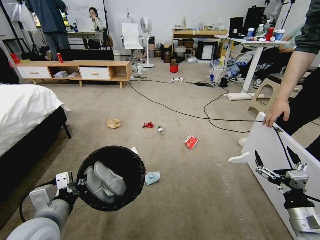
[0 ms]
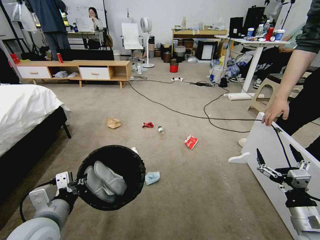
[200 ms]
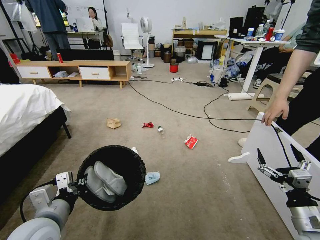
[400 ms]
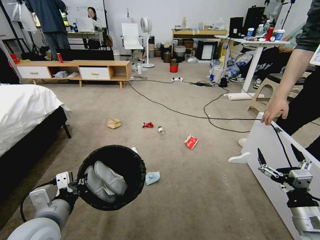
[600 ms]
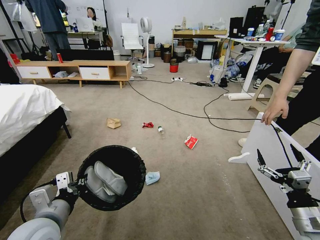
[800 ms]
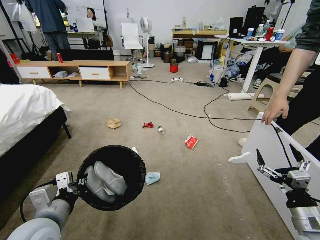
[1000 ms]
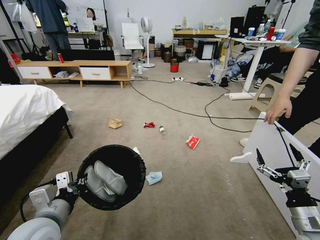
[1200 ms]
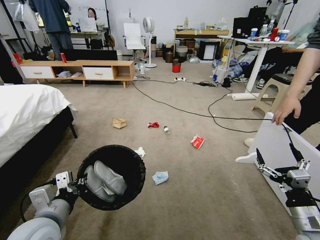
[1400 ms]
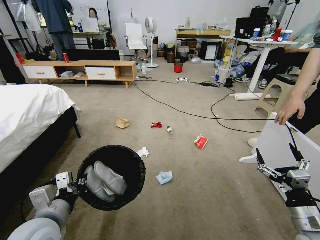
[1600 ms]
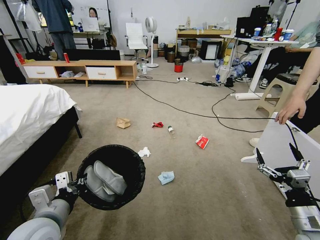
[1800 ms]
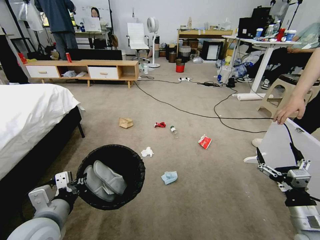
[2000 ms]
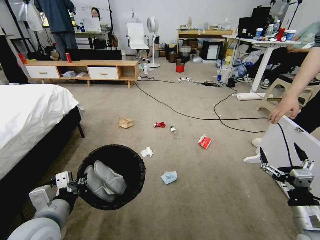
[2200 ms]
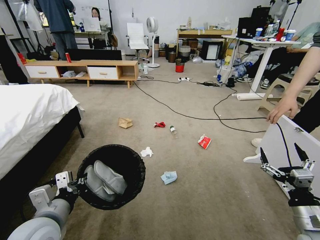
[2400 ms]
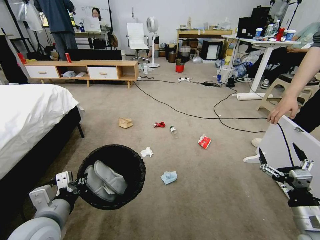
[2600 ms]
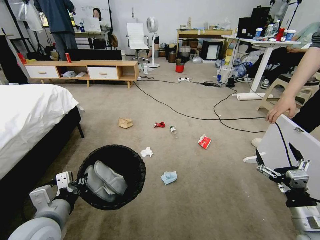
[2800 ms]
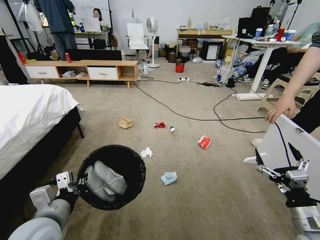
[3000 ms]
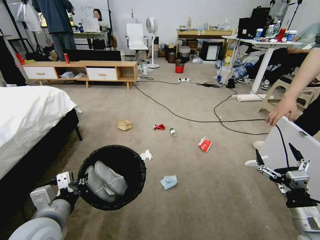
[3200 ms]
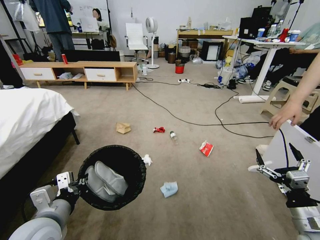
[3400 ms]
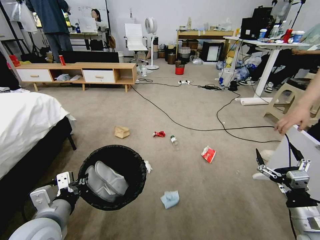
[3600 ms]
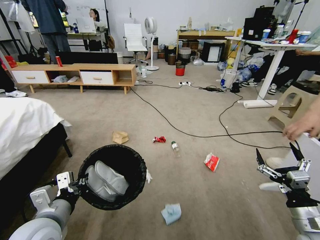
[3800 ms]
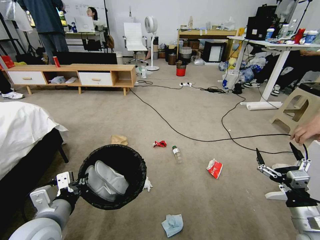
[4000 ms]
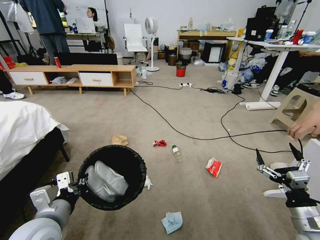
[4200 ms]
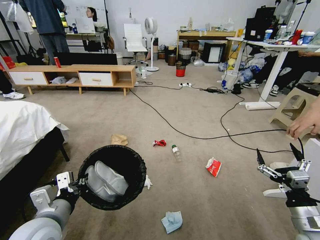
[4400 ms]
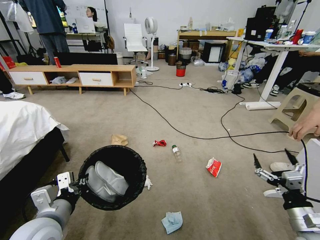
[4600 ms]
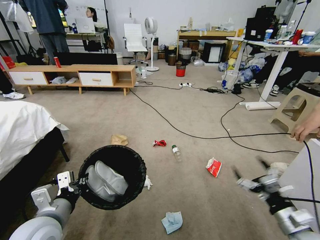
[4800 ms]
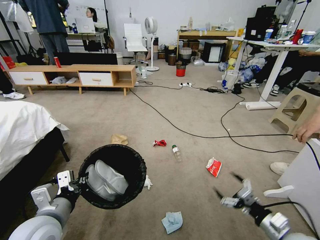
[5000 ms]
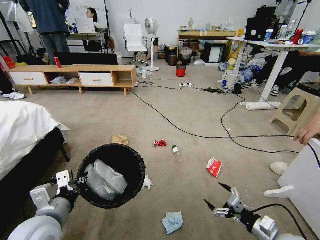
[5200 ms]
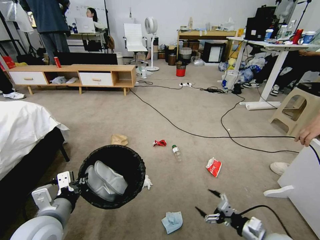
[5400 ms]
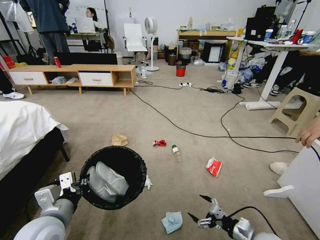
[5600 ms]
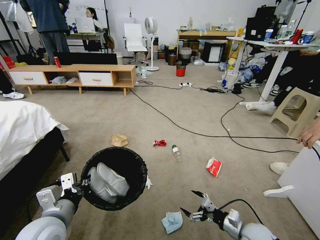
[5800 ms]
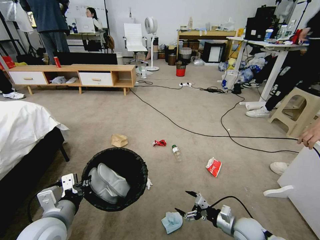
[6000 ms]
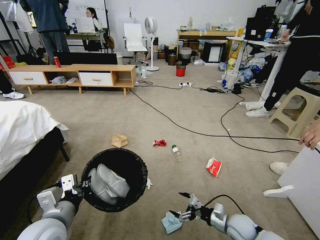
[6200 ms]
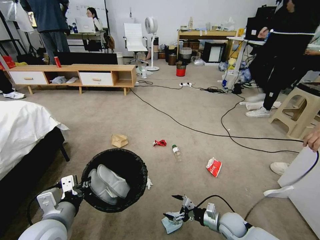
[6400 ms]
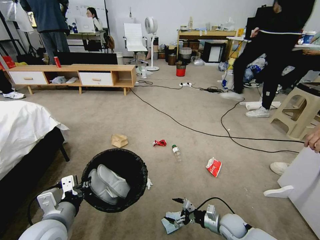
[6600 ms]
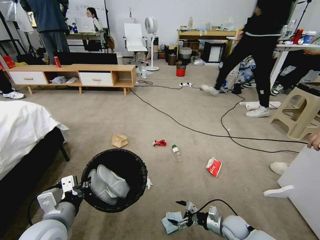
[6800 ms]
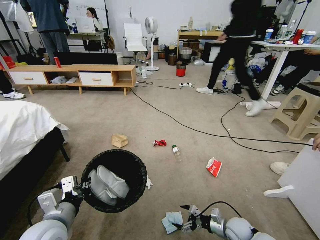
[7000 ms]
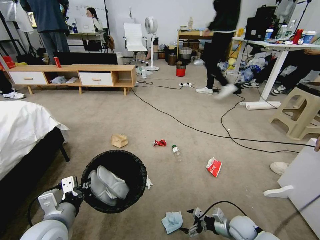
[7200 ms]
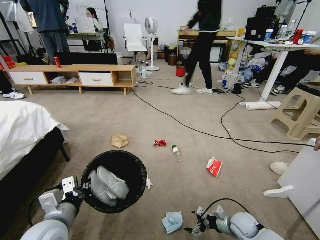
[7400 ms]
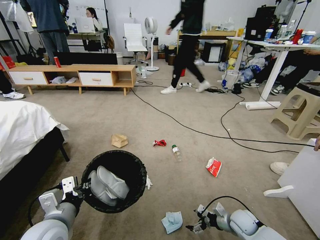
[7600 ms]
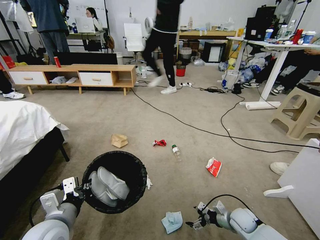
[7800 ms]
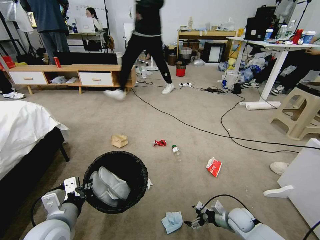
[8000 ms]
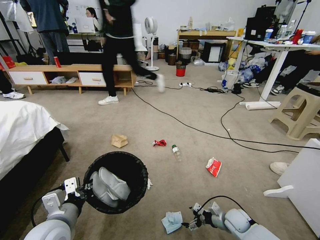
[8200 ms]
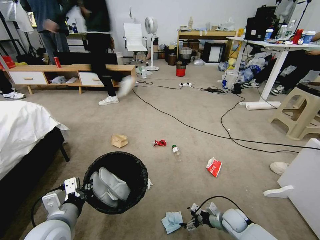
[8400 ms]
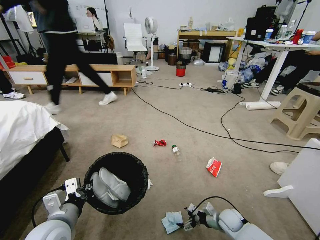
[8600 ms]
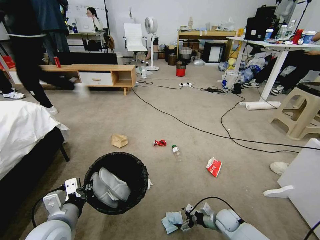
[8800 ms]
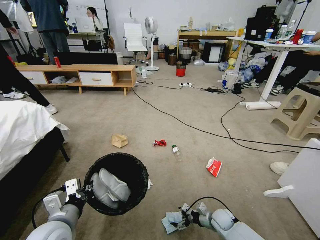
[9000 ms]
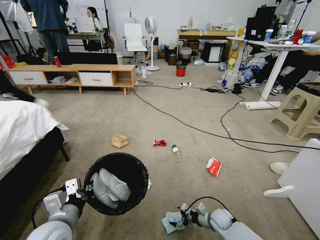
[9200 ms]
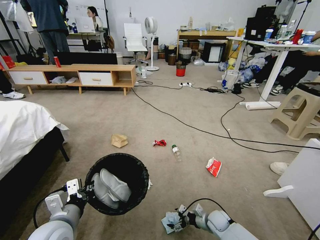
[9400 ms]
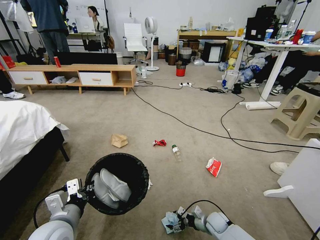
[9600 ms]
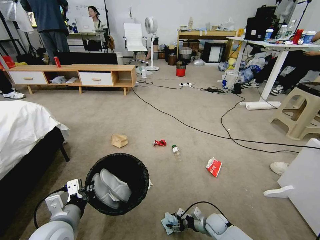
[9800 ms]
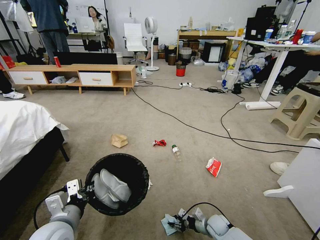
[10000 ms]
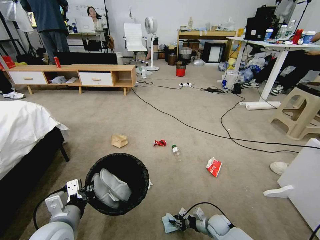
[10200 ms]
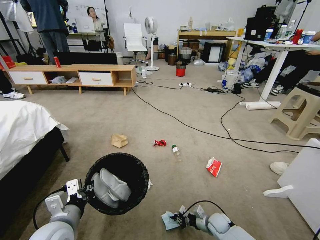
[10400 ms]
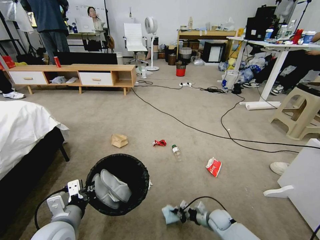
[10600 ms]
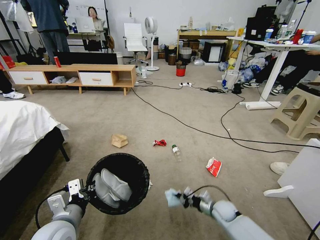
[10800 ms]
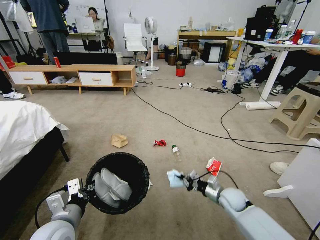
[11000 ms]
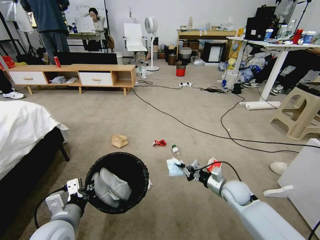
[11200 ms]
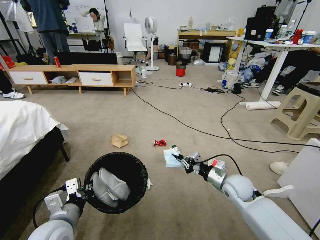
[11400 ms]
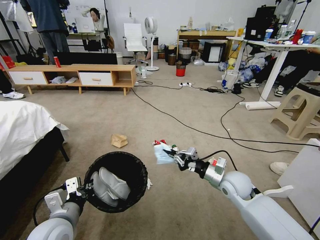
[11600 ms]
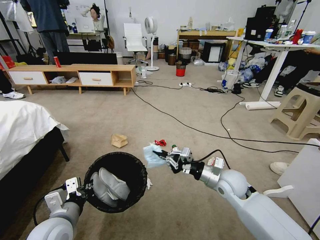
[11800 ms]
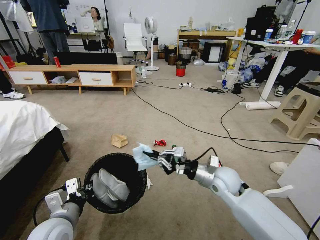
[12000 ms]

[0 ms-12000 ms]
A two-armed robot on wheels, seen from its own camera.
Task of the whole recording: Pick up the trash bin and place the garbage on the floor into it.
1600 ms to 3000 ms: The two grippers keep their place.
4400 ms to 6000 ms: The right gripper heads downward, to the left and forward, covering some 20 cm.
6000 ms to 7600 ms: The right gripper shifts by roughly 5 cm.
7600 ms to 9000 ms: The right gripper moves downward and to the left, approximately 10 cm.
9000 ms to 10400 ms: The right gripper closes its fingers.
10400 ms to 12000 ms: The right gripper goes some 30 cm upward.

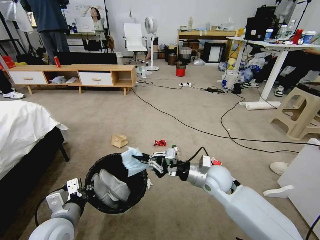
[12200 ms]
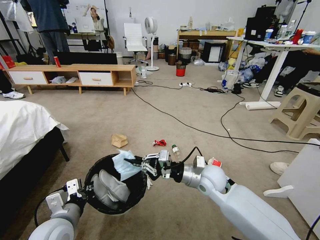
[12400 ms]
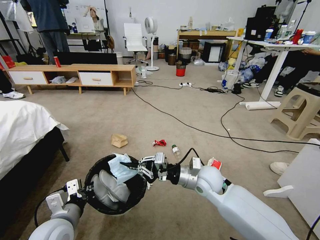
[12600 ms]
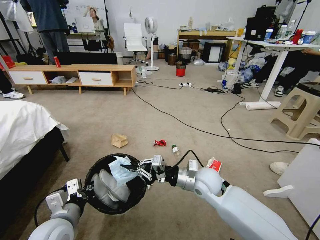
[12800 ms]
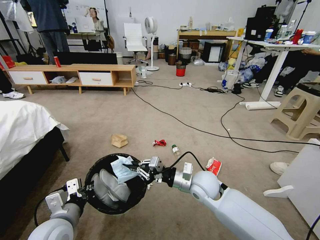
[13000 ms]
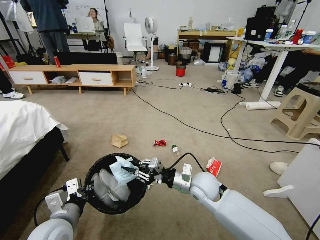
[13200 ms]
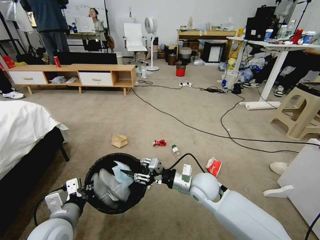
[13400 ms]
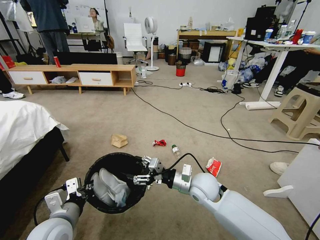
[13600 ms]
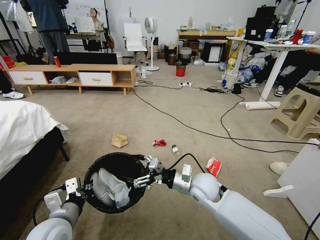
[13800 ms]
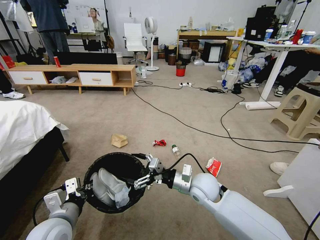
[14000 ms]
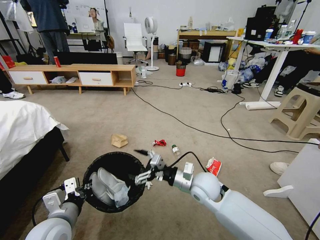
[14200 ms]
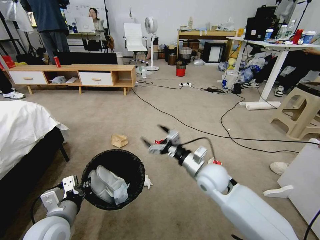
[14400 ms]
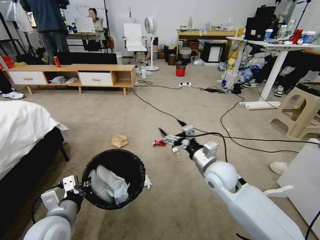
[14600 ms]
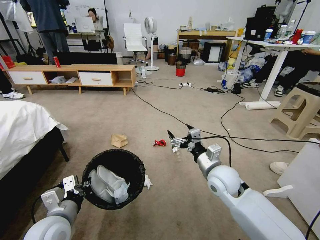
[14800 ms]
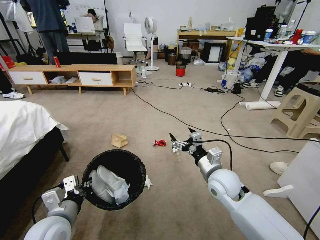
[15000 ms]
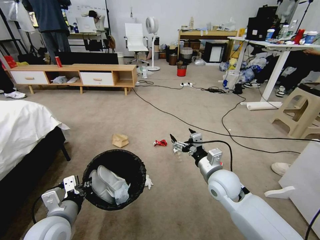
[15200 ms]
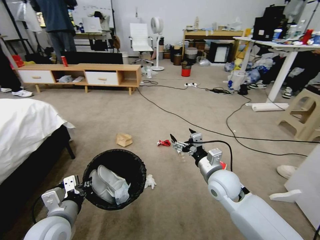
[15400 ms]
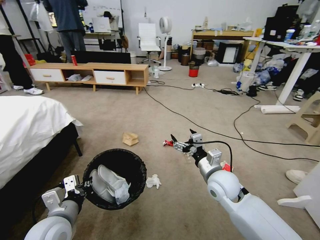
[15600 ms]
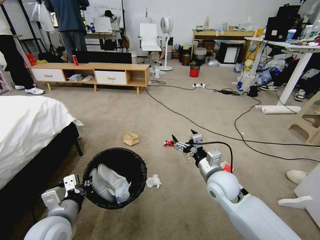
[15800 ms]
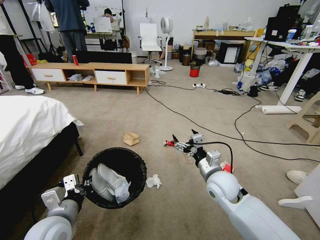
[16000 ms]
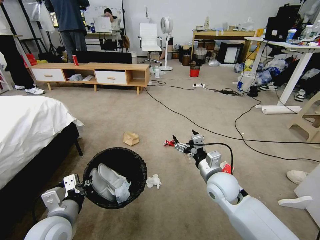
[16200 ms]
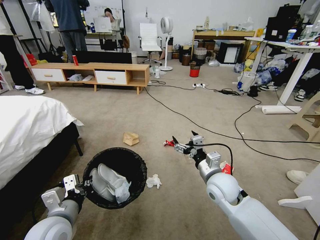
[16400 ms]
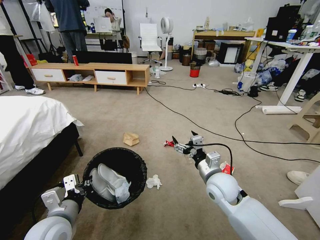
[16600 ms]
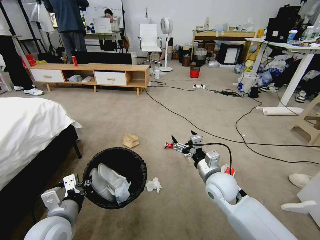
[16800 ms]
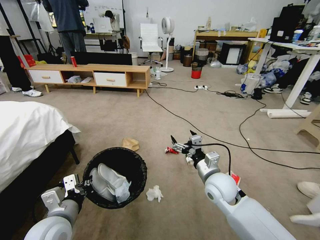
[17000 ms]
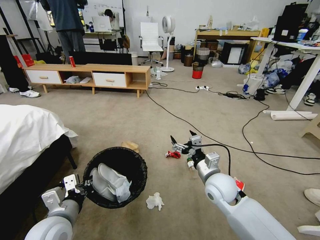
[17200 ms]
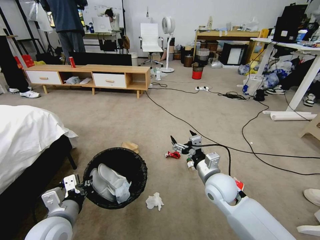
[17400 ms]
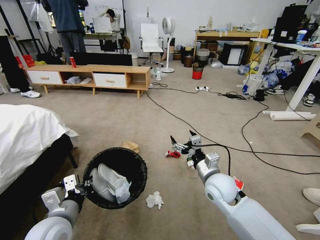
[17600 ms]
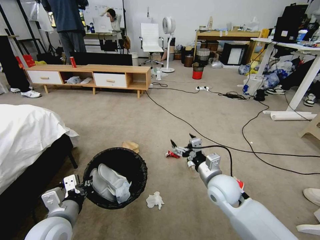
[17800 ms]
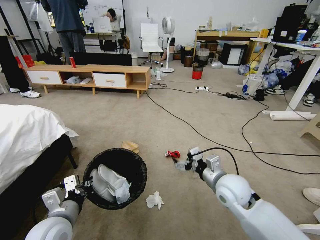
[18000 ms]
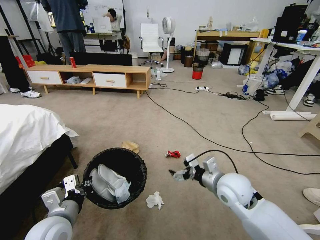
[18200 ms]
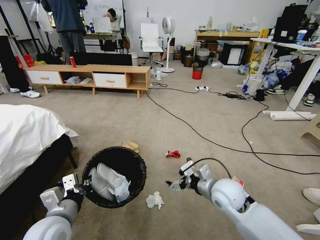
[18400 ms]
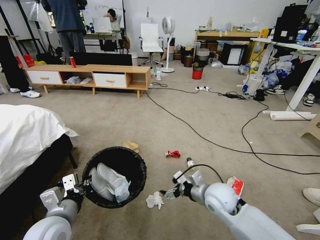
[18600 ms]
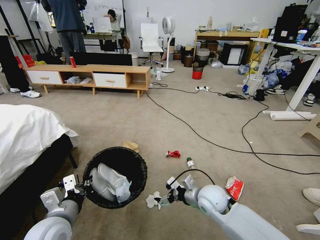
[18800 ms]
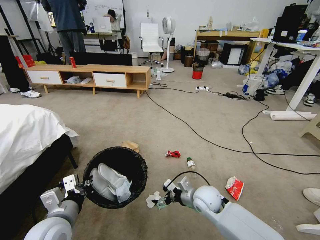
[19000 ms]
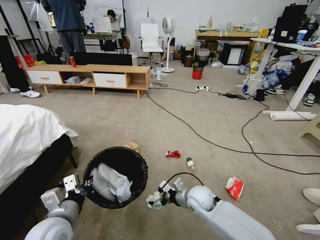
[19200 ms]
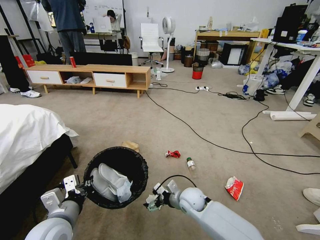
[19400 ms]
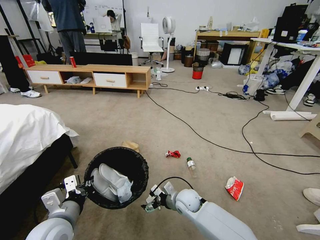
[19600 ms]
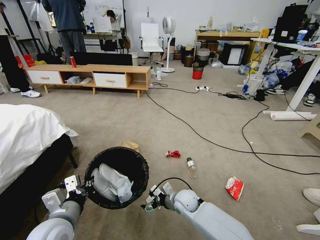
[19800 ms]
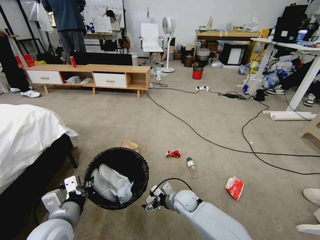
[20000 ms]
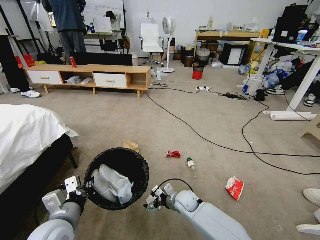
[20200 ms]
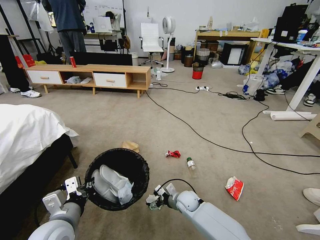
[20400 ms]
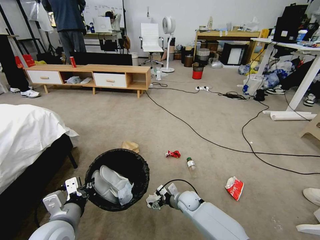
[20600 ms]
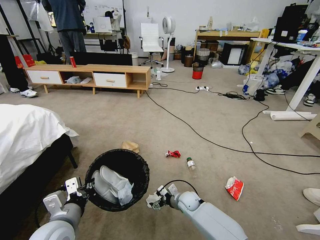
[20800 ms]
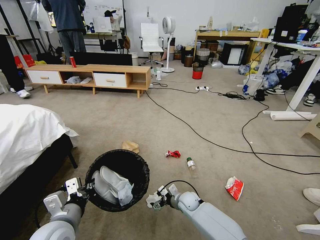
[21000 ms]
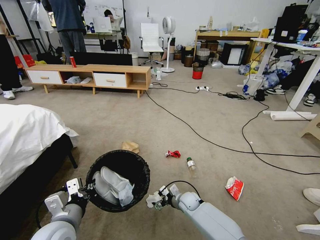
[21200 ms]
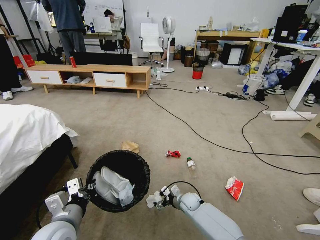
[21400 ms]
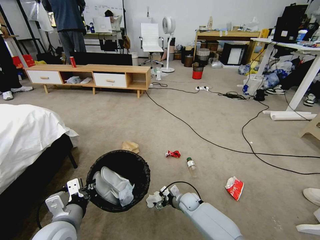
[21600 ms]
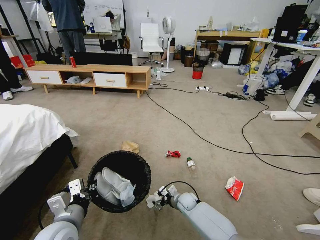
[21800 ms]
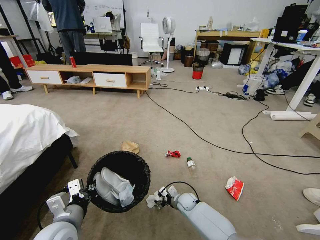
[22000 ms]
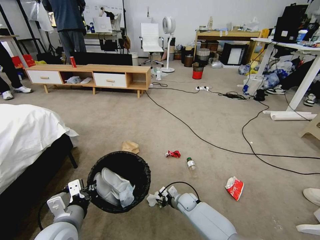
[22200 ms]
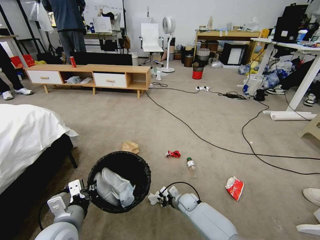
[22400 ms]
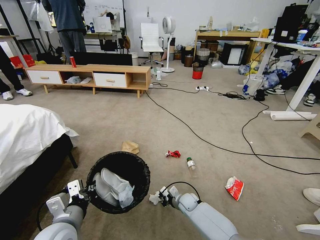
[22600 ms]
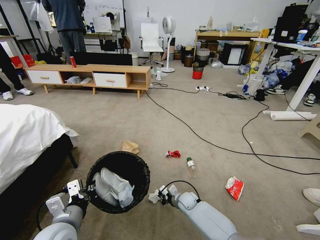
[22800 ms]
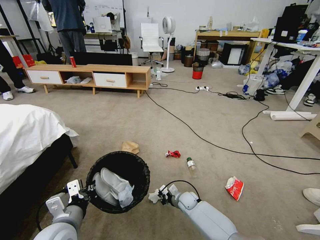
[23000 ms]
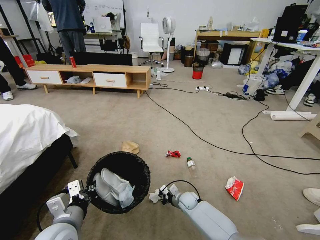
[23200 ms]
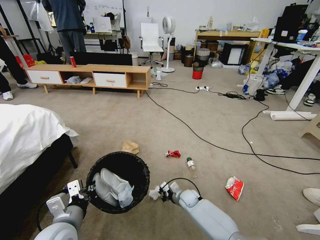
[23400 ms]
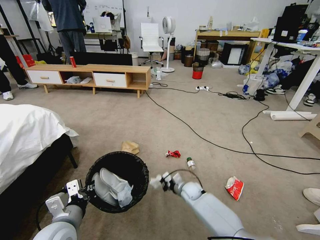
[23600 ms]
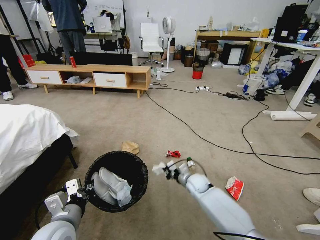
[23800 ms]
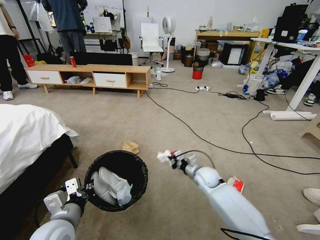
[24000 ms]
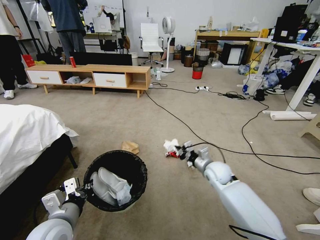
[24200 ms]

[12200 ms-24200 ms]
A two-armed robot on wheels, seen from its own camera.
Task of the whole recording: Pick up the trash bin and place the garbage on the floor into it.
12200 ms to 13800 ms: The right gripper shifts roughly 5 cm to the left, and opens.
13800 ms to 15200 ms: The right gripper shifts approximately 5 cm to the right.
18200 ms to 19800 ms: The right gripper travels downward and to the left by approximately 20 cm.
19800 ms to 21200 ms: The right gripper moves downward, approximately 10 cm.
21200 ms to 22600 ms: The right gripper closes its fingers.
22600 ms to 24200 ms: The right gripper is displaced upward and to the right by approximately 25 cm.
